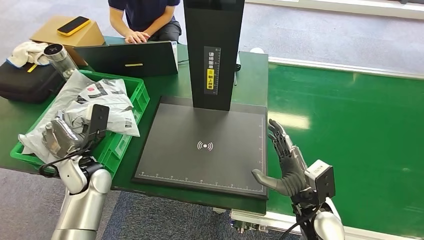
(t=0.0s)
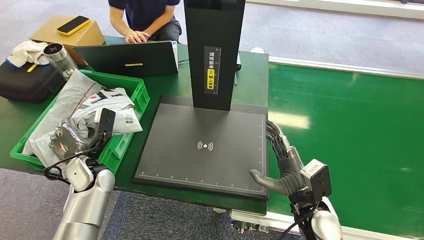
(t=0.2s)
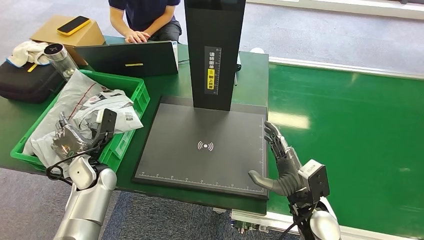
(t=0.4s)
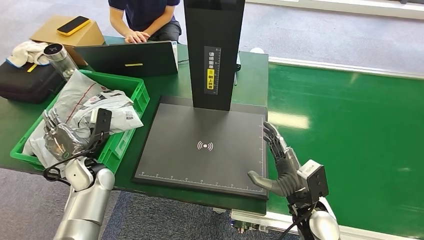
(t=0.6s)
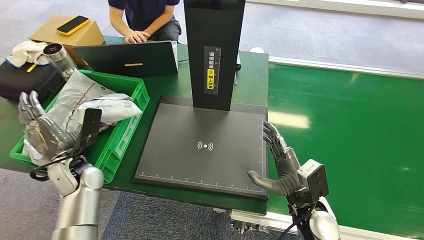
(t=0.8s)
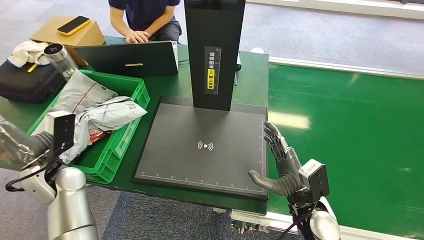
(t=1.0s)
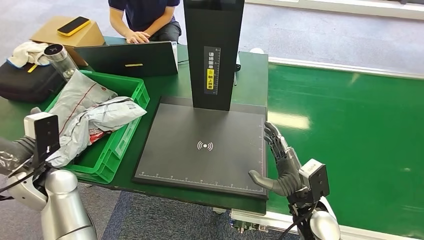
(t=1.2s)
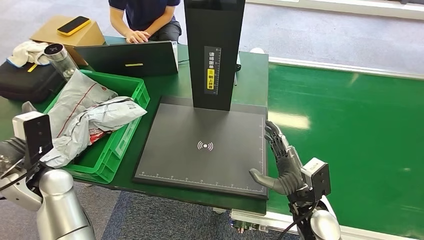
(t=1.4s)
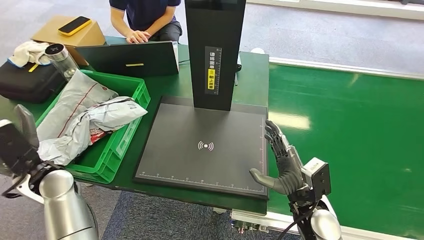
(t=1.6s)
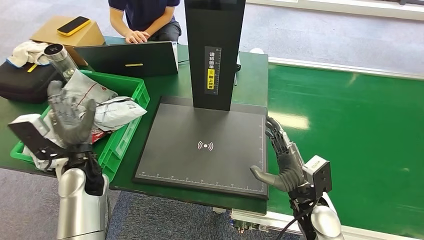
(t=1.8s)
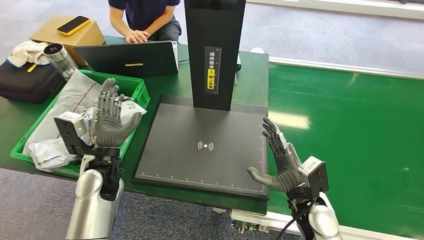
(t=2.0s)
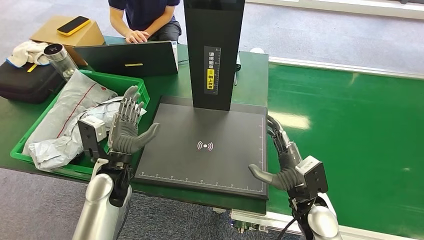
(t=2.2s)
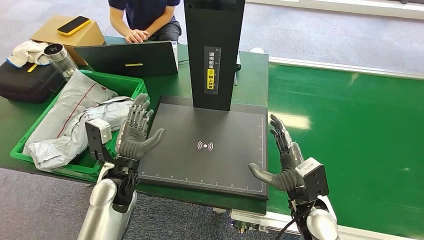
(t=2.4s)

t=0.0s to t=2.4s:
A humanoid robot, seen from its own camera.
Step, t=0.0s to t=2.4s: Place the package into the parcel locker.
t=0.0s to t=1.2s: The left hand goes some 5 cm upward.
t=1.2s to t=2.4s: The left hand goes some 15 cm to the right and downward.
